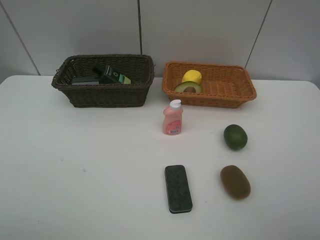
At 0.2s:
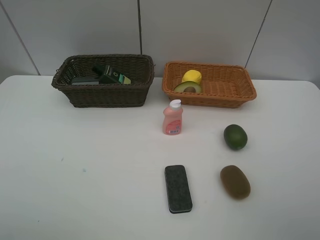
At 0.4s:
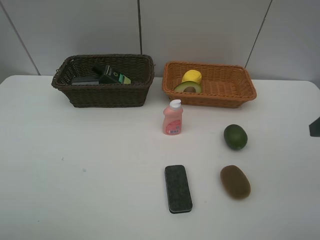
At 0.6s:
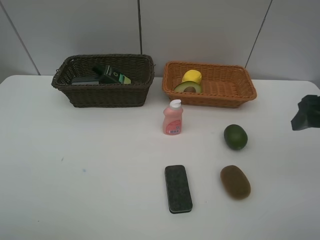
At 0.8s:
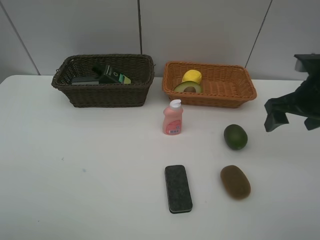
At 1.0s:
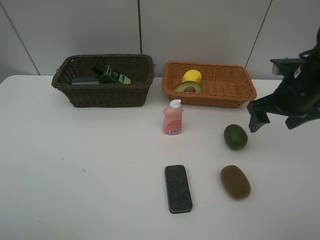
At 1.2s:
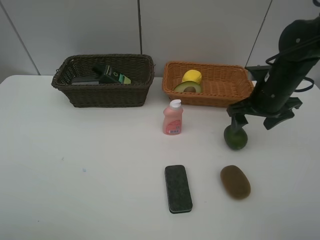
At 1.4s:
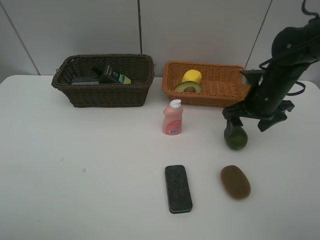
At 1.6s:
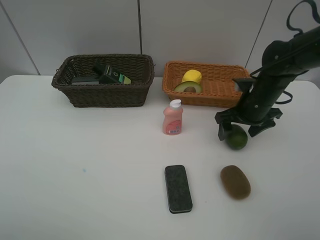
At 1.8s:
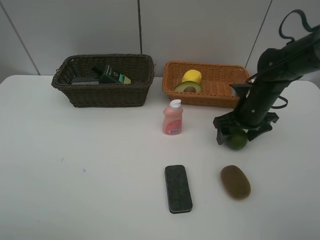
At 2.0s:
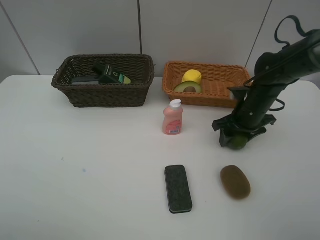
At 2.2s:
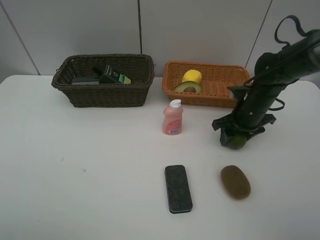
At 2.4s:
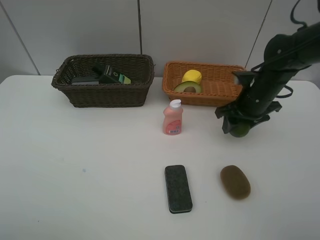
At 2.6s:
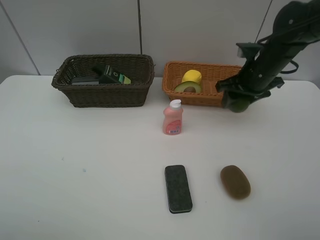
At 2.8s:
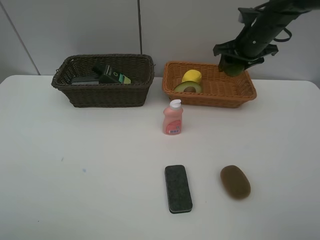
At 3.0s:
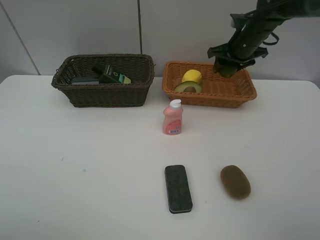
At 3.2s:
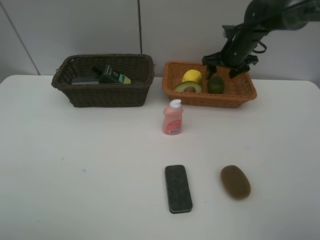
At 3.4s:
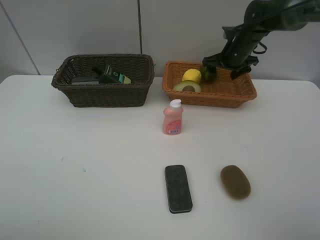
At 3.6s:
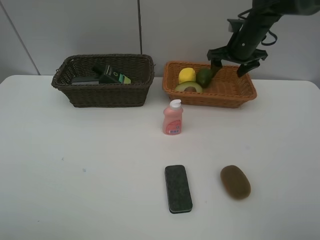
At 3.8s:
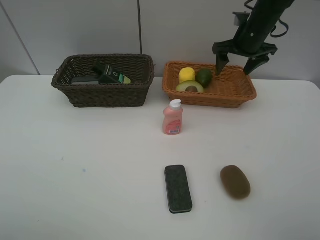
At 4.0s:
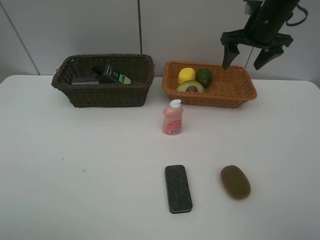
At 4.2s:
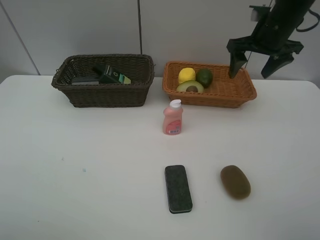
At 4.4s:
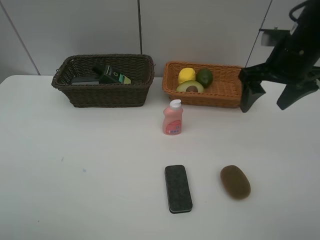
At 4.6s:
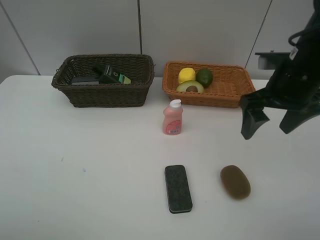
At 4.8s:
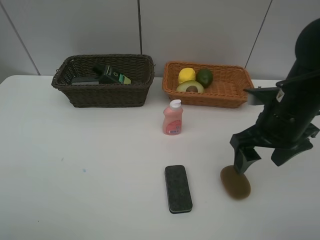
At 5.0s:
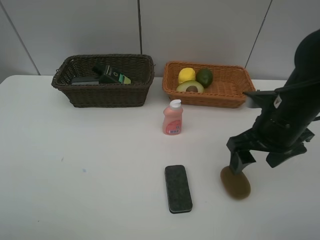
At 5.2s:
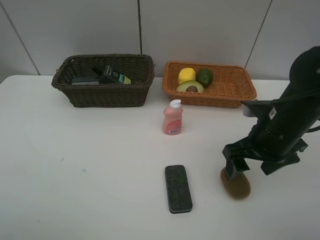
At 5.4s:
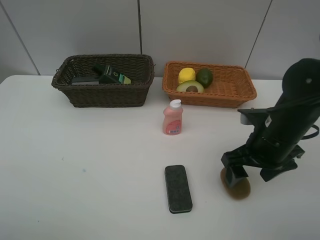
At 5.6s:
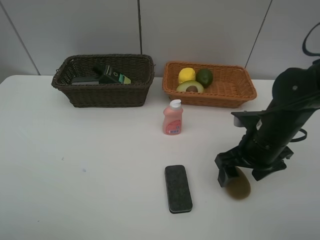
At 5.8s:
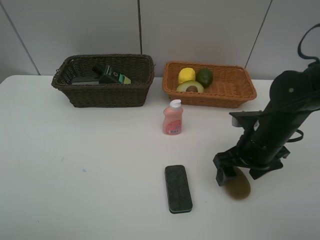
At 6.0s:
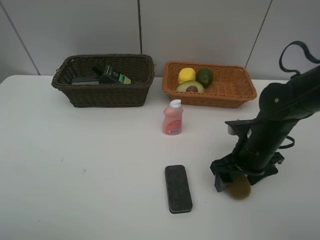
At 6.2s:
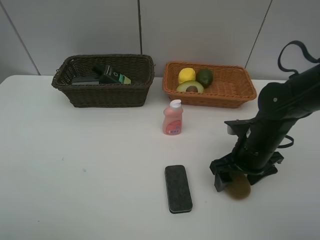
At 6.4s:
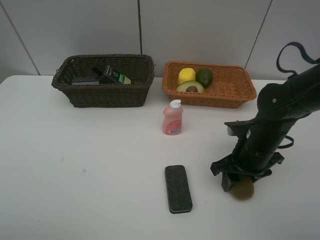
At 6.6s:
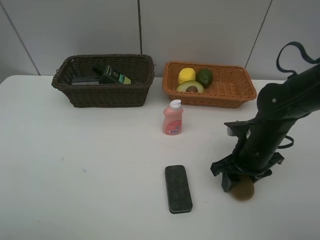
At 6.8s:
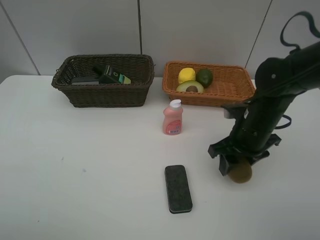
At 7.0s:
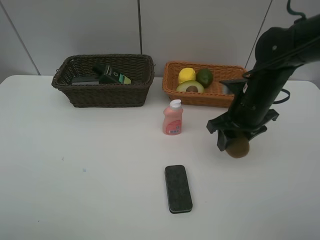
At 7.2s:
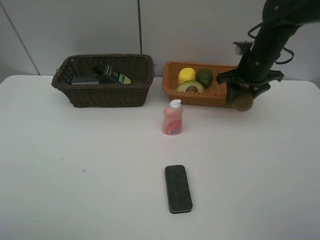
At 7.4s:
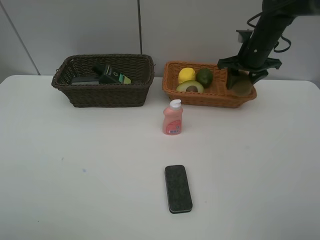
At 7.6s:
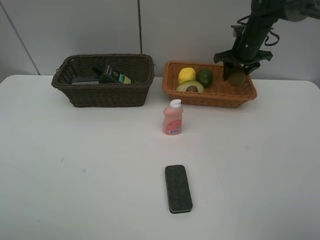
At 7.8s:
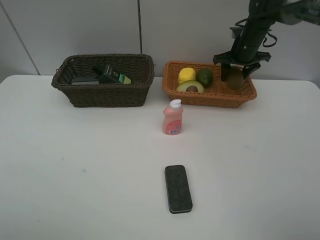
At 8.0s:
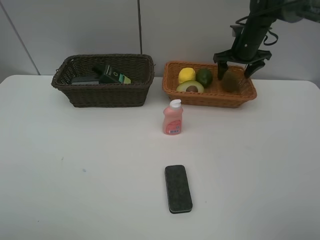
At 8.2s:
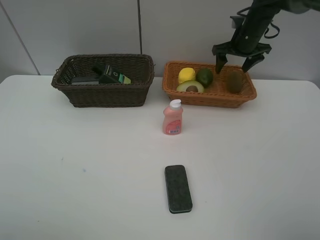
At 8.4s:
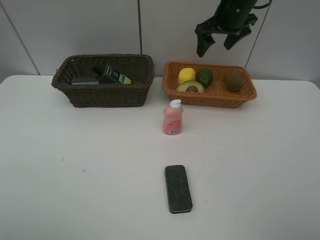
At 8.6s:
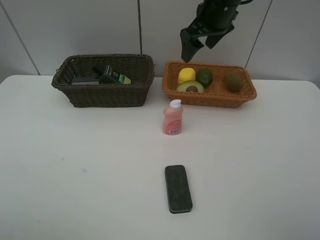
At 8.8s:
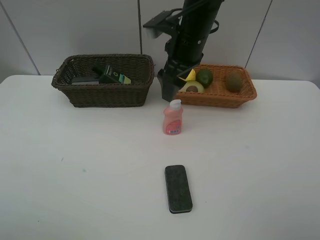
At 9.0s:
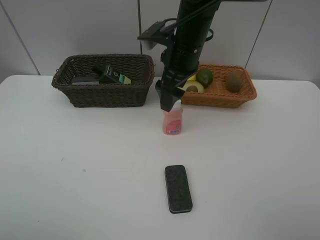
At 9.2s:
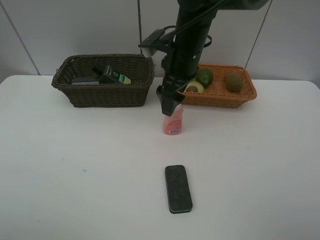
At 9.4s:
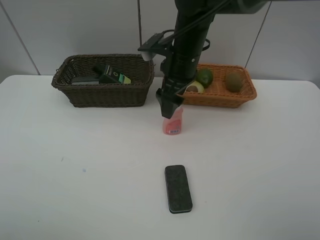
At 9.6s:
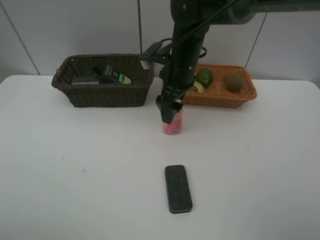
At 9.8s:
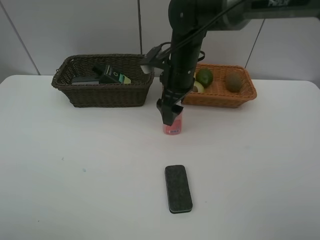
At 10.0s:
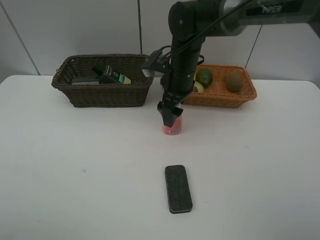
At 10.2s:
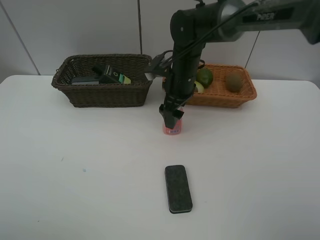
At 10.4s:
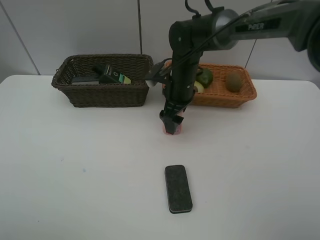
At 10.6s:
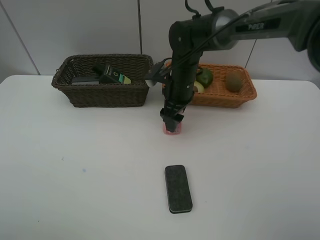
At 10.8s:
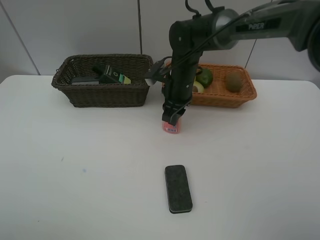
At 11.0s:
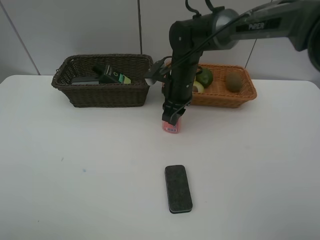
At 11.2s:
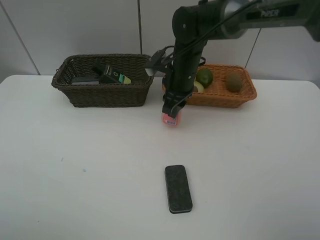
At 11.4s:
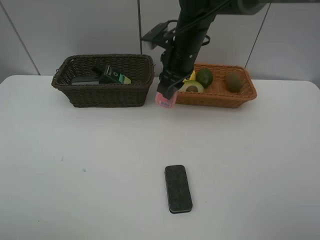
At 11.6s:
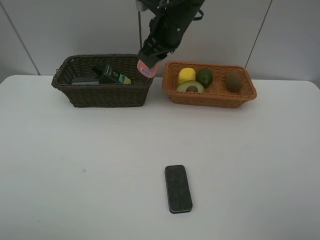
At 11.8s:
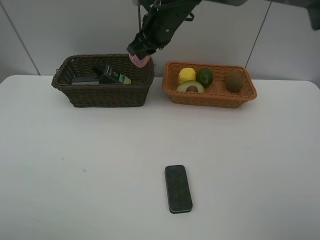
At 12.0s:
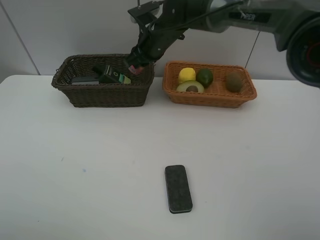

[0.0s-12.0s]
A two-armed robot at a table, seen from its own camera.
Task of the whole recording: Place multiple objects separately in different baskets.
Step, 0.0s to 2.4s: Pick up the lime with right gripper.
Step, 2.6s to 3.4s: Place the lime in the light basket with right gripper.
Step, 3.6s to 6.8s: Pick up kiwi with right gripper.
Step, 7.0s to 8.0s: Place the kiwi in the light basket with right gripper.
Step, 8.2s to 11.2s: Pick up the laundry detergent with right gripper.
0.0s to 1.6s: The right gripper heads forward and downward, covering approximately 35 cm.
1.6s to 3.0s: The right gripper moves forward and upward, about 15 cm, and closes its fingers.
3.0s to 4.4s: The right gripper shifts about 20 cm backward, and opens up.
4.4s to 6.0s: The right gripper moves downward, about 15 cm.
6.0s to 7.6s: The right gripper shifts some 25 cm forward, and closes.
7.6s to 9.0s: The right gripper shifts approximately 25 cm to the left and backward, and opens its fingers.
9.0s to 10.4s: The right gripper is displaced downward by roughly 10 cm.
10.4s to 12.0s: The right gripper travels forward, upward and to the left by some 10 cm, and closes its fingers.

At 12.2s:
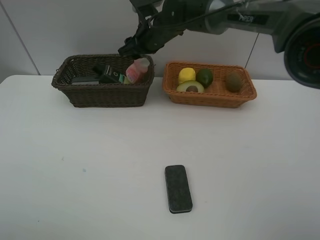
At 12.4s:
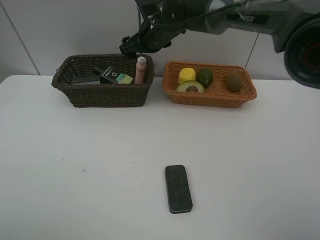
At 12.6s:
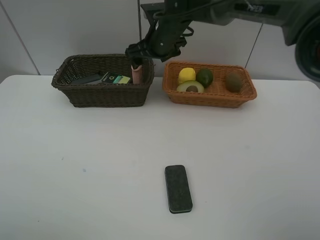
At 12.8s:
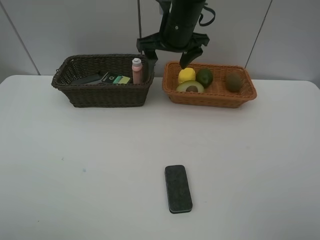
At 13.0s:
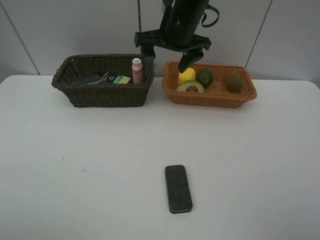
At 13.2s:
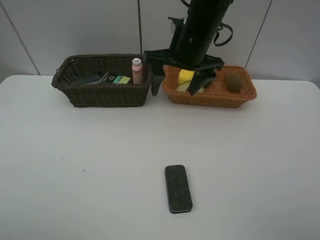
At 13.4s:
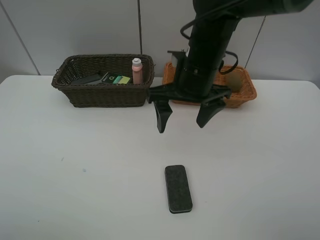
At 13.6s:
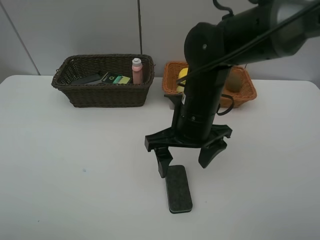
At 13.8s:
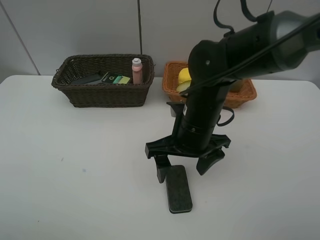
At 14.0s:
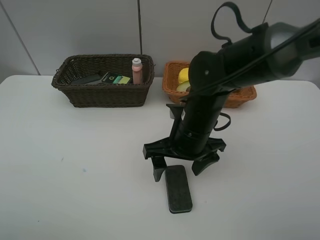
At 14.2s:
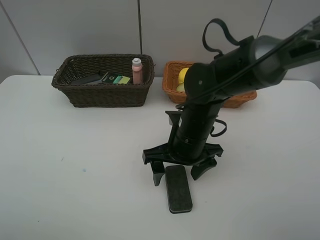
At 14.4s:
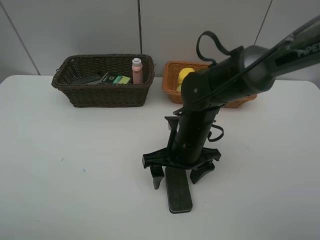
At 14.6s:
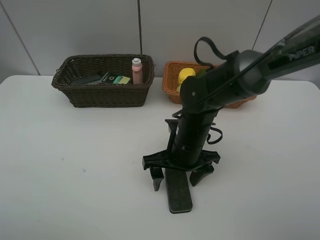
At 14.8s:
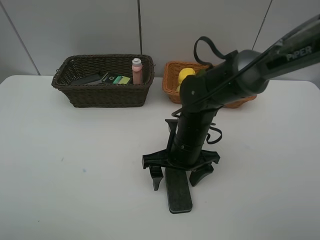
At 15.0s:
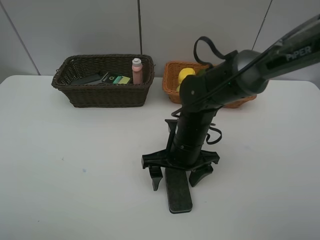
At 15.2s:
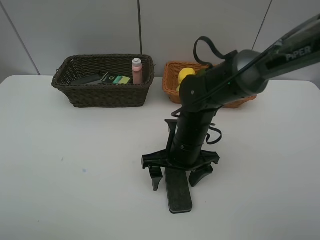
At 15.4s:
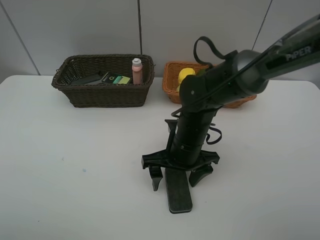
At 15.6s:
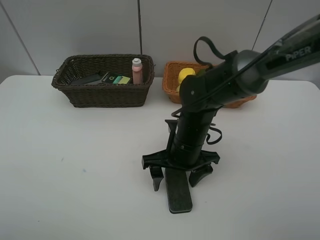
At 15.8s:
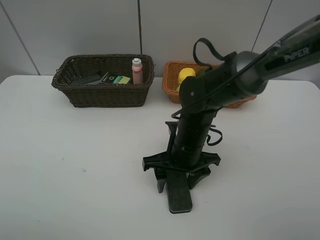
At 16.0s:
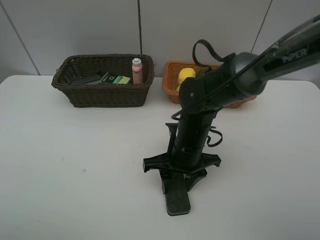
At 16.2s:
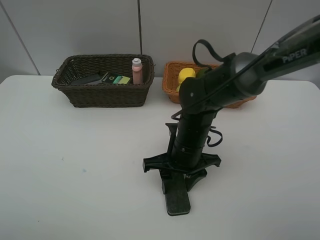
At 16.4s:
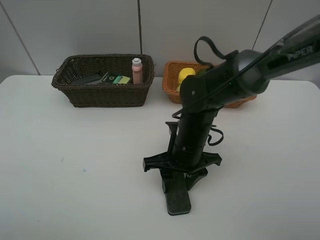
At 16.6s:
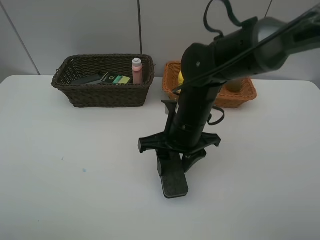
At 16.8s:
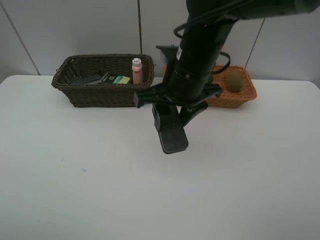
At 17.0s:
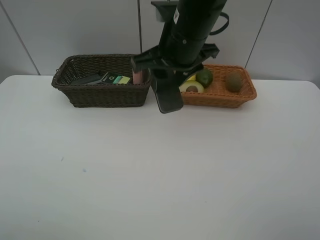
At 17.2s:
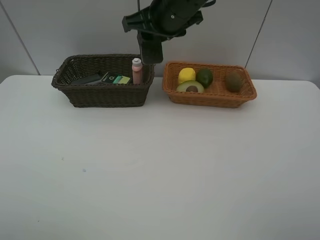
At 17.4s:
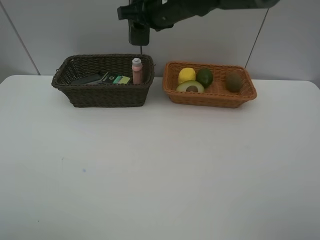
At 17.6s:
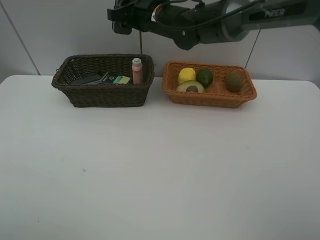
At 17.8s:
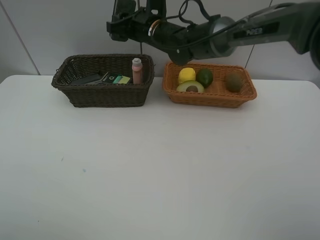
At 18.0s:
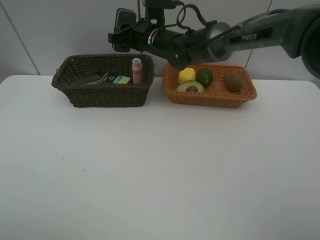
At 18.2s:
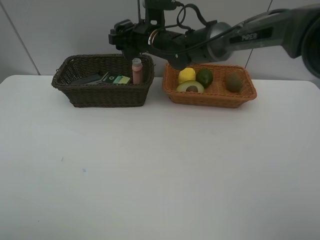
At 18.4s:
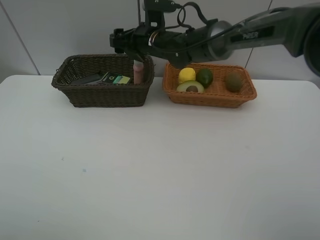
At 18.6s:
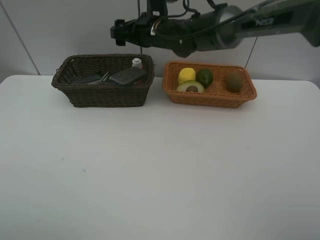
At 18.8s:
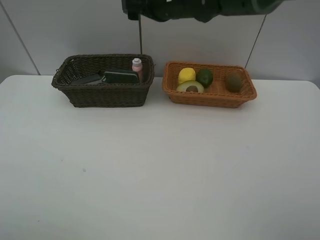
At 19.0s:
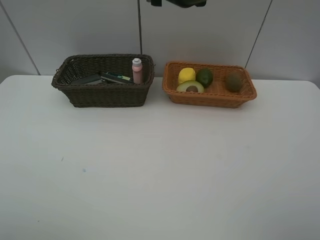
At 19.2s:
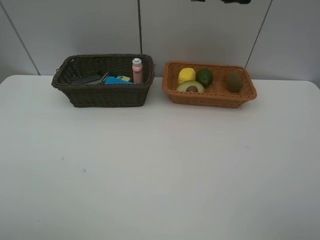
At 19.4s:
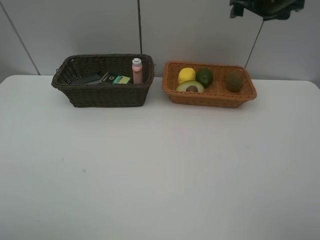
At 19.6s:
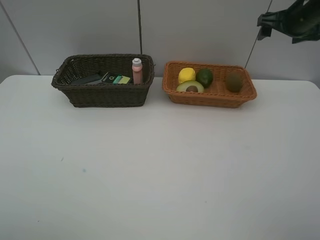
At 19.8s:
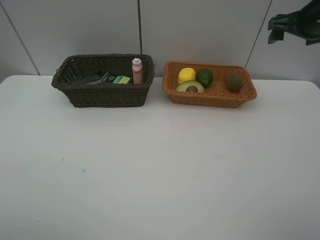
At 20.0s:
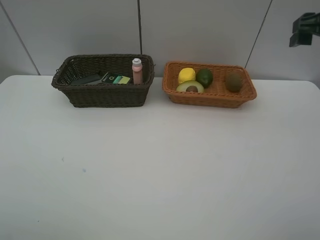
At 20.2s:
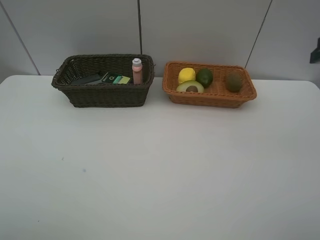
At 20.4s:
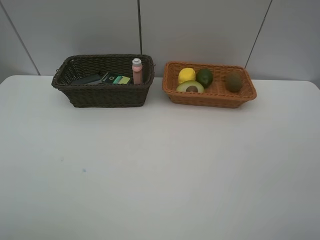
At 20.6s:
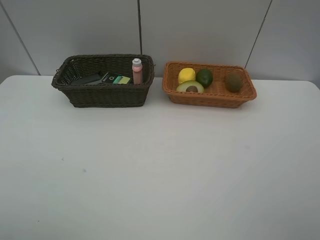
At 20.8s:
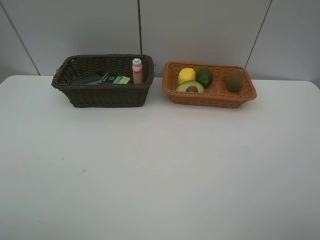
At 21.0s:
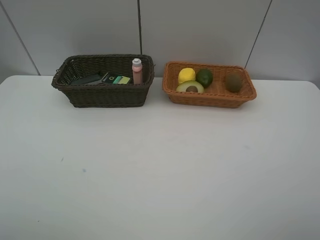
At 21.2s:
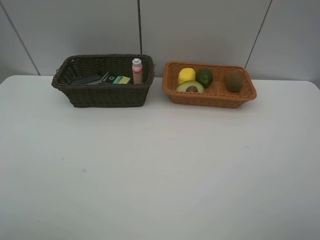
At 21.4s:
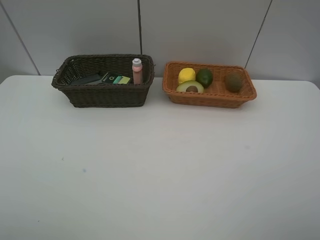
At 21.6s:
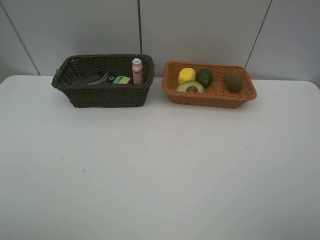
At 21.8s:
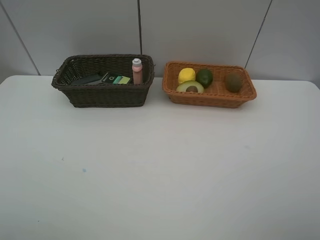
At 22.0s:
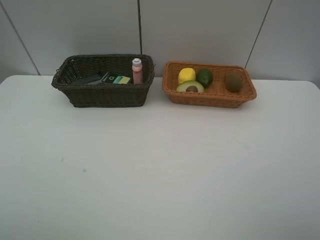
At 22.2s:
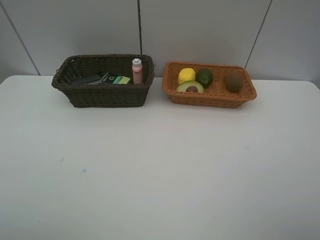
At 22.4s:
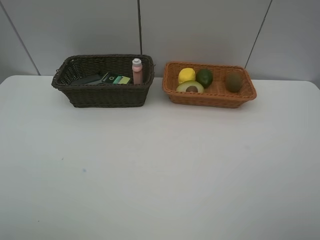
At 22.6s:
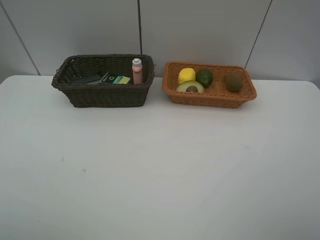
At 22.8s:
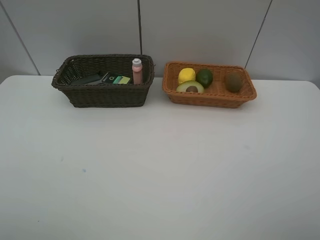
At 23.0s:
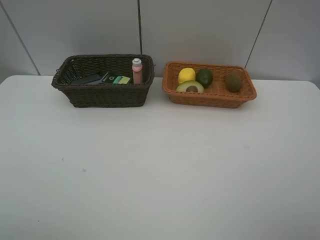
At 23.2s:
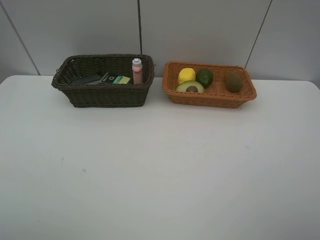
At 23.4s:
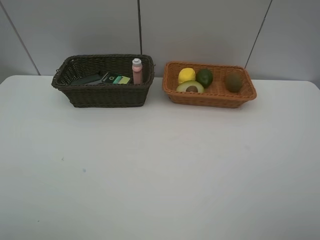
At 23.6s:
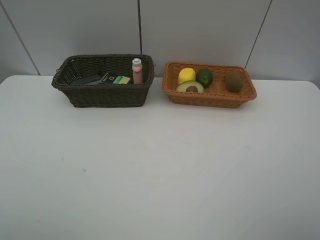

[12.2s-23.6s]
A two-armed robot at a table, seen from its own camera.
Task of the whole recording: Place multiple objects separately in different baskets.
Step, 12.6s to 16.6s: Pick up blackboard eraser with right gripper.
Step, 16.8s to 18.6s: Place the blackboard eraser in the dark basket with right gripper.
12.2s to 13.6s: The right gripper shifts roughly 20 cm backward.
13.6s to 15.0s: The right gripper goes about 5 cm downward.
15.0s to 16.4s: The right gripper closes up.
16.4s to 17.8s: The right gripper travels forward, upward and to the left by about 25 cm.
17.8s to 19.4s: The right gripper goes roughly 25 cm to the right, and opens its fingers.
19.4s to 20.8s: The right gripper goes about 50 cm backward.
22.2s to 23.6s: Neither gripper changes place.
